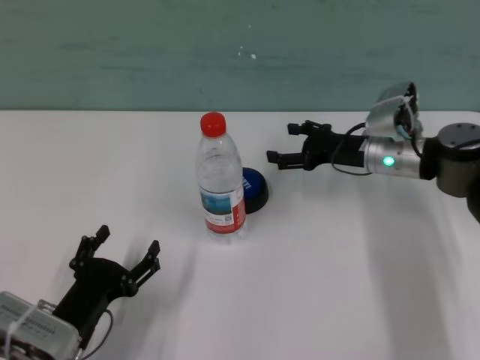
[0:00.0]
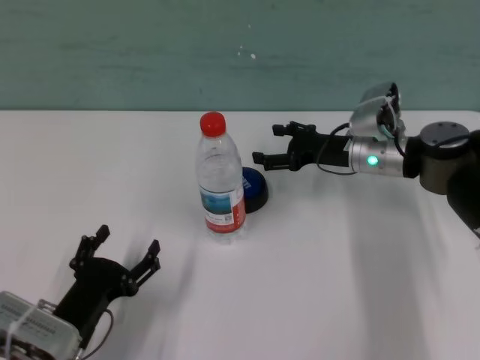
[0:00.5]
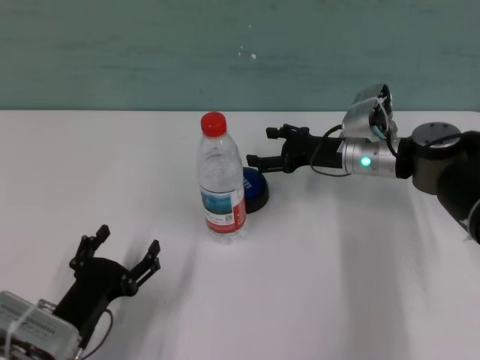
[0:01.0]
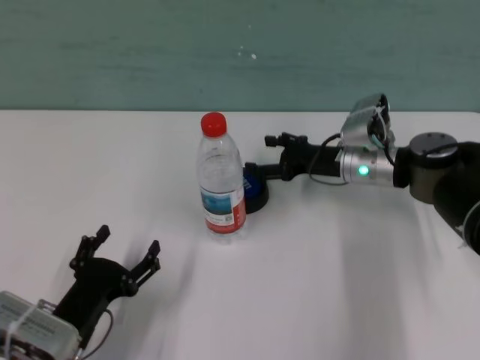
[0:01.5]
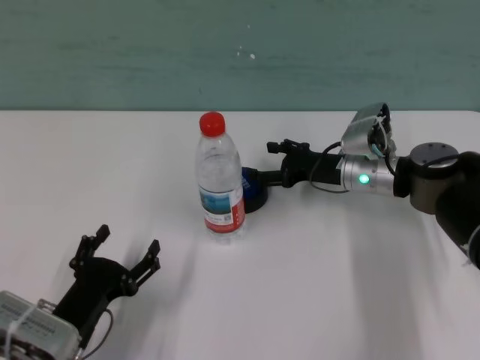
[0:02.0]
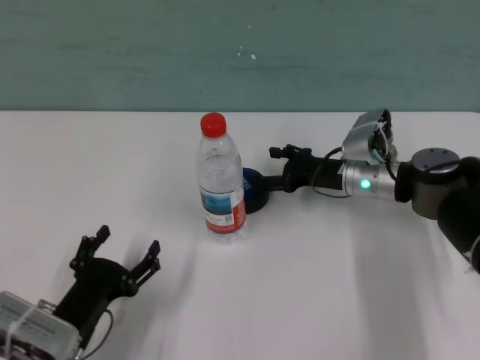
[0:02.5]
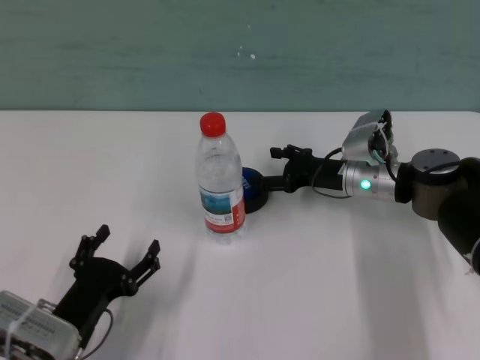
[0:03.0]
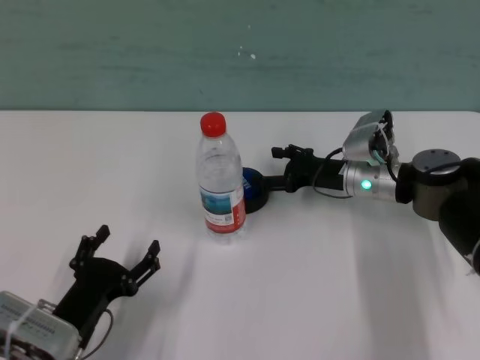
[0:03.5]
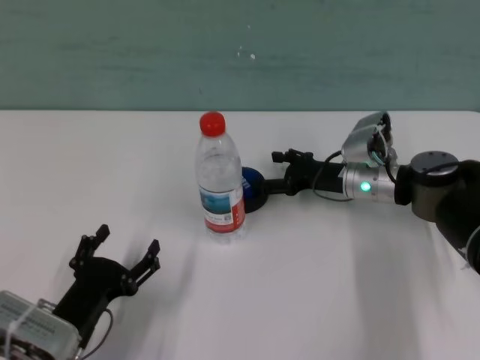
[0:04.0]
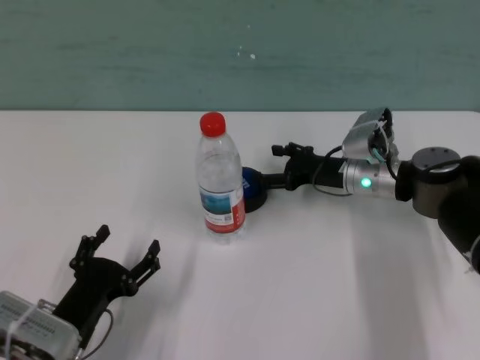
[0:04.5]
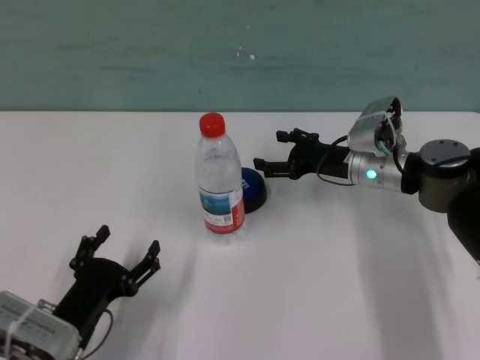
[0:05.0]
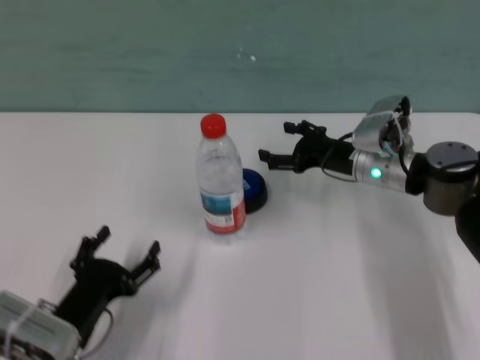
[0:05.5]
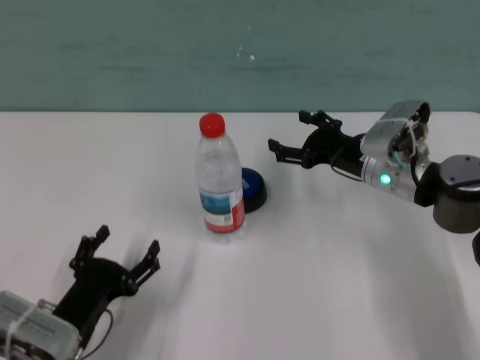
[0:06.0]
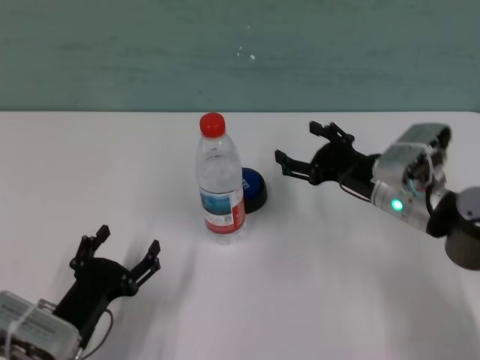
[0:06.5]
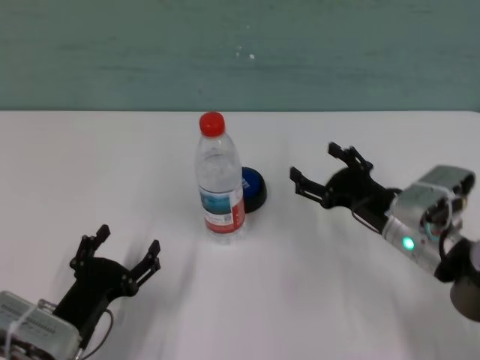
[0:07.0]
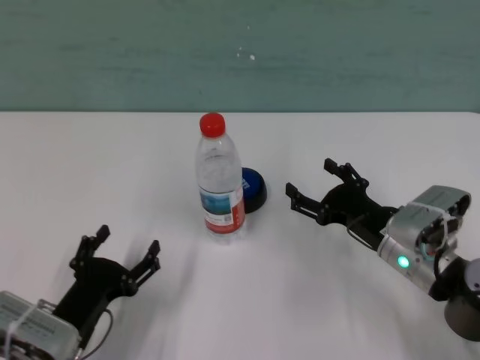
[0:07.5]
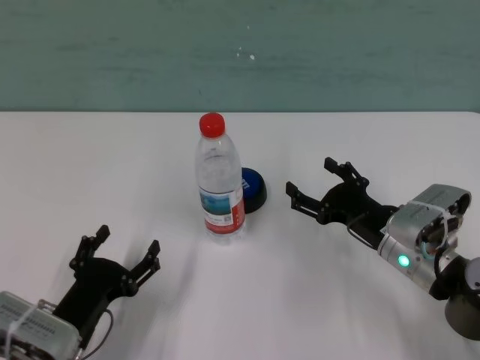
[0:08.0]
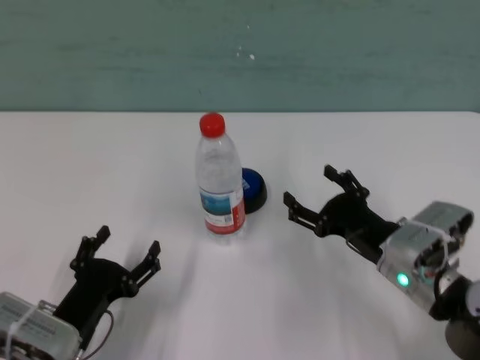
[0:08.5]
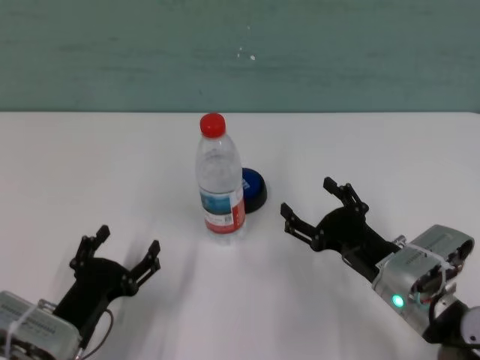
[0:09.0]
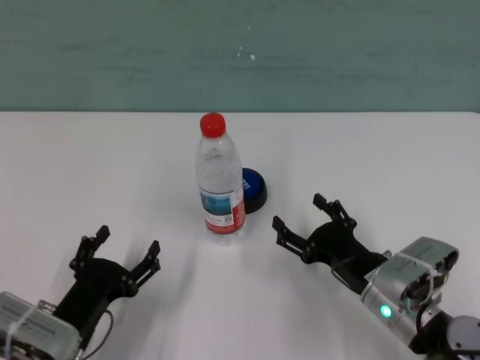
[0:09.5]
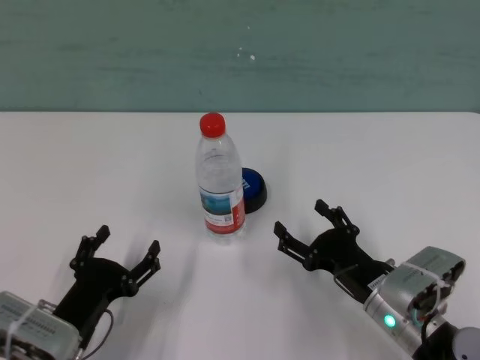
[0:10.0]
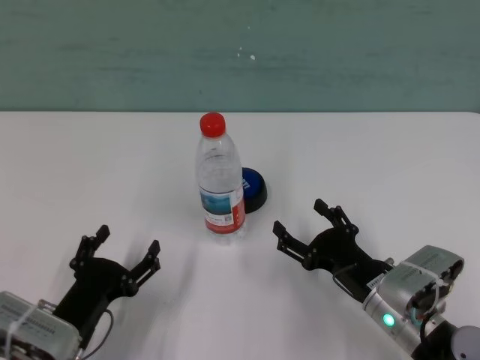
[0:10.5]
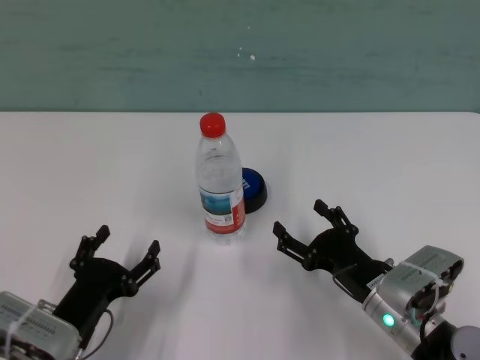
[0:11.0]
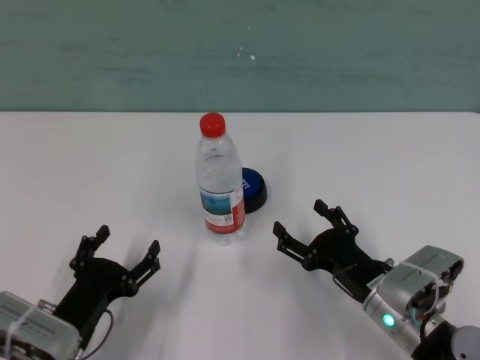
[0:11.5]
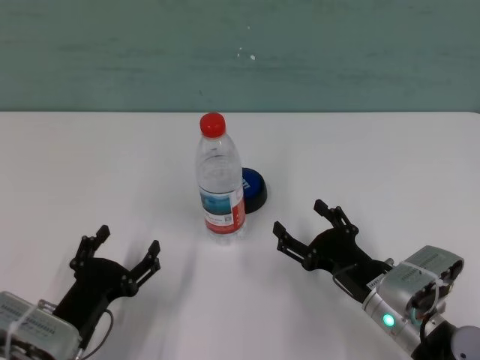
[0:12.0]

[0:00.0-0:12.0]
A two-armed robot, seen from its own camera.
Task of the whole recording: after avoiding the water bottle on the table, press the button.
Step, 0:00.0 to 0:04.0: Press the button blocked by the bottle with right gripper.
